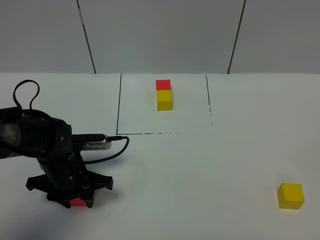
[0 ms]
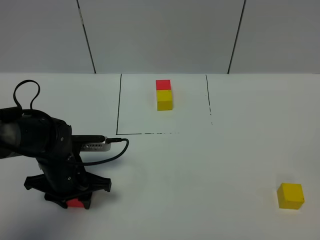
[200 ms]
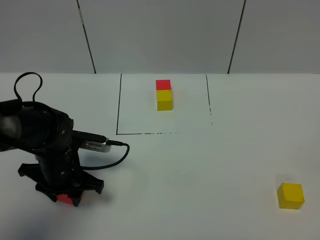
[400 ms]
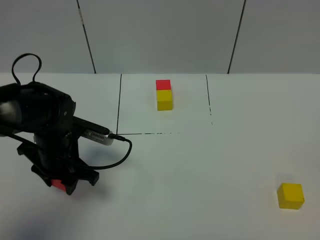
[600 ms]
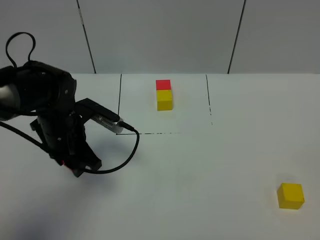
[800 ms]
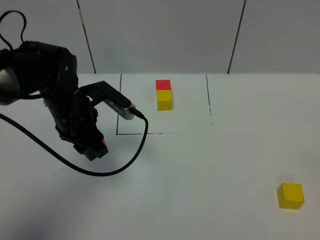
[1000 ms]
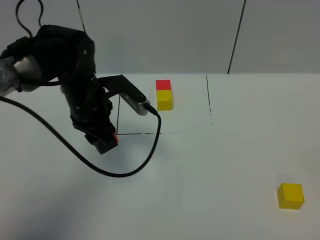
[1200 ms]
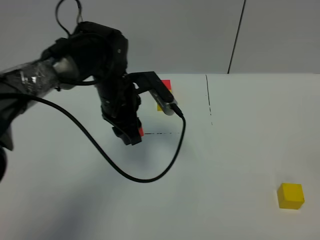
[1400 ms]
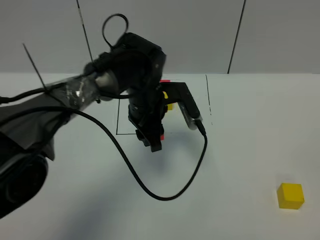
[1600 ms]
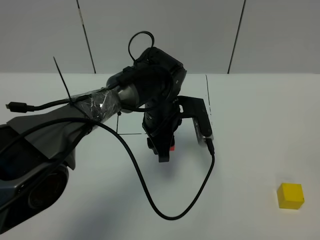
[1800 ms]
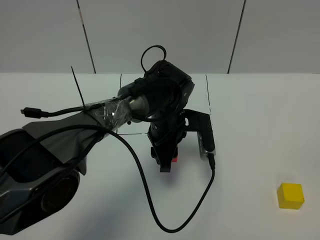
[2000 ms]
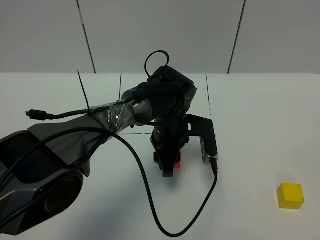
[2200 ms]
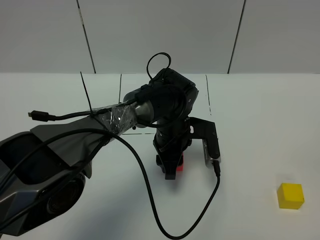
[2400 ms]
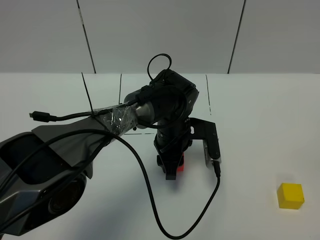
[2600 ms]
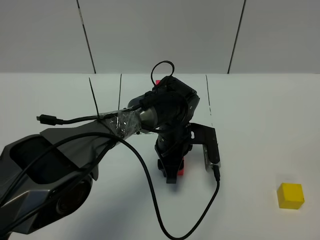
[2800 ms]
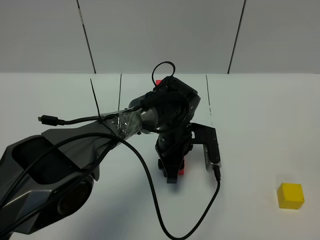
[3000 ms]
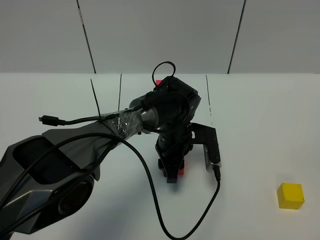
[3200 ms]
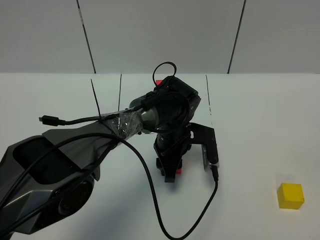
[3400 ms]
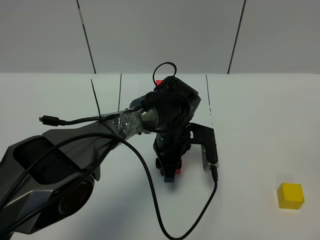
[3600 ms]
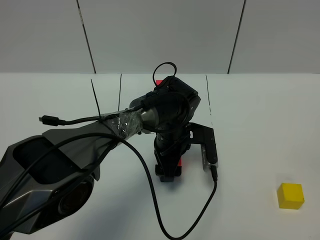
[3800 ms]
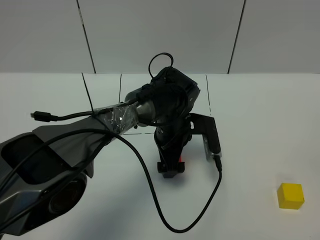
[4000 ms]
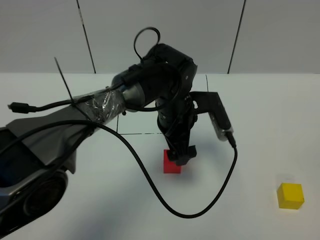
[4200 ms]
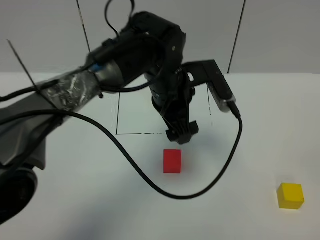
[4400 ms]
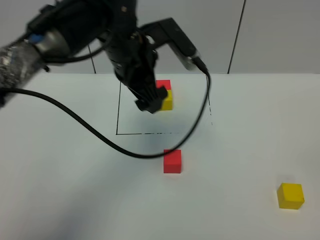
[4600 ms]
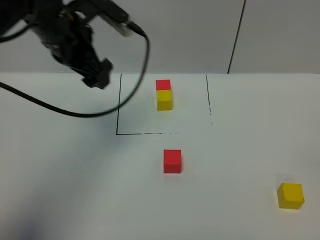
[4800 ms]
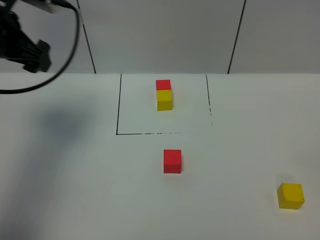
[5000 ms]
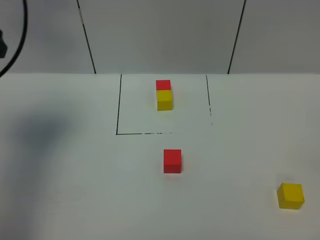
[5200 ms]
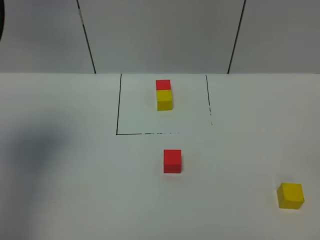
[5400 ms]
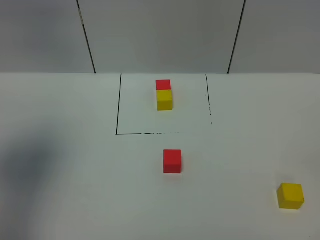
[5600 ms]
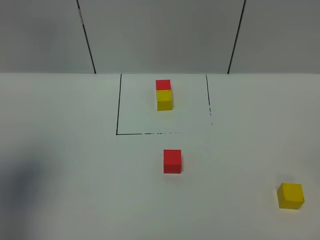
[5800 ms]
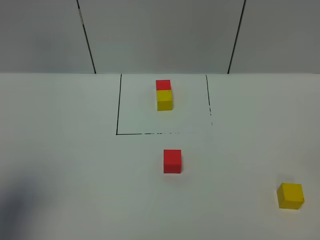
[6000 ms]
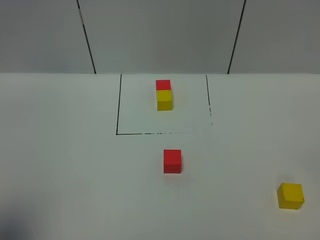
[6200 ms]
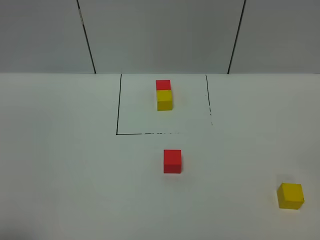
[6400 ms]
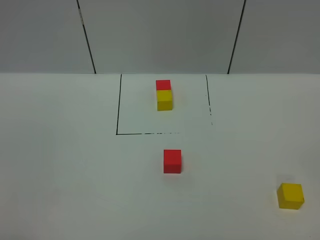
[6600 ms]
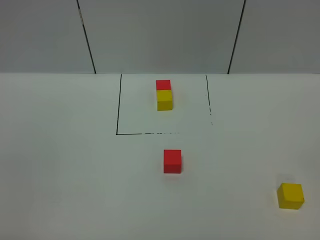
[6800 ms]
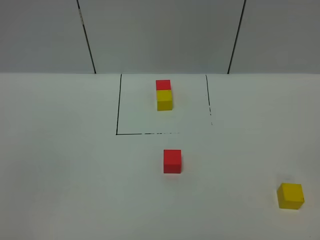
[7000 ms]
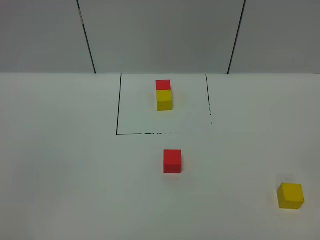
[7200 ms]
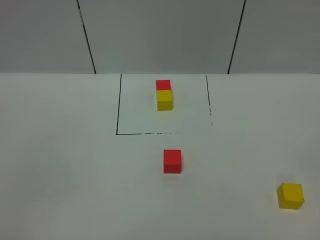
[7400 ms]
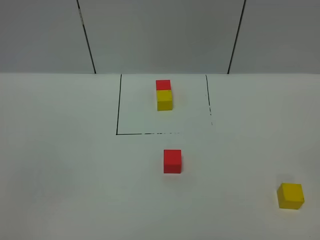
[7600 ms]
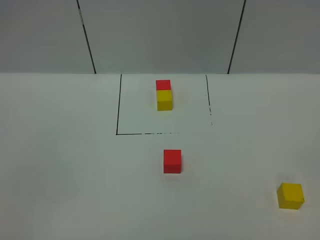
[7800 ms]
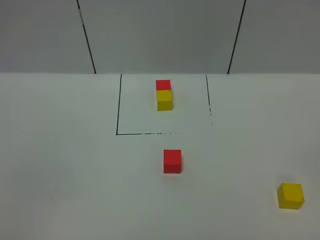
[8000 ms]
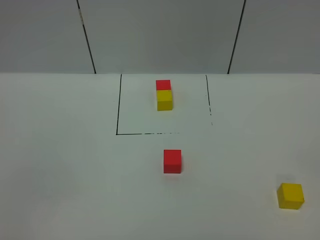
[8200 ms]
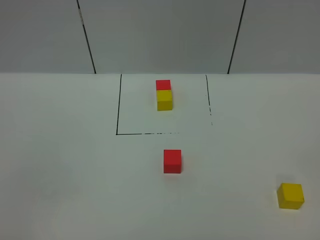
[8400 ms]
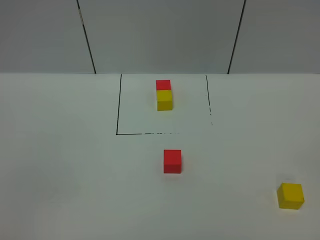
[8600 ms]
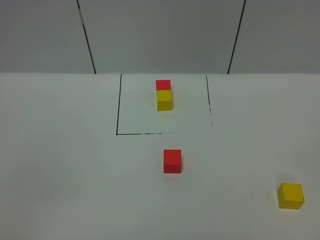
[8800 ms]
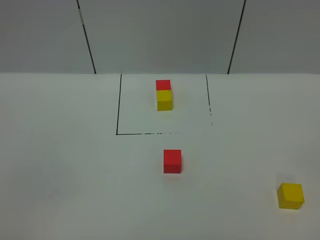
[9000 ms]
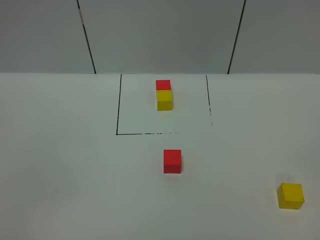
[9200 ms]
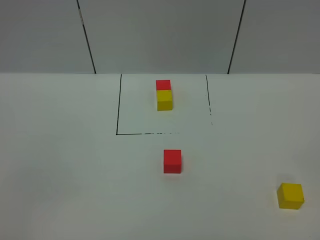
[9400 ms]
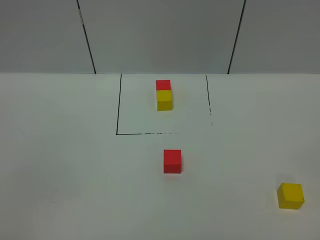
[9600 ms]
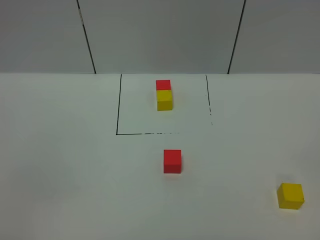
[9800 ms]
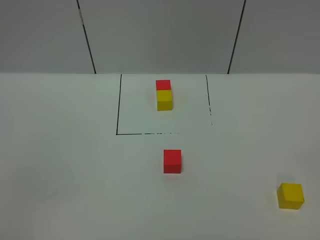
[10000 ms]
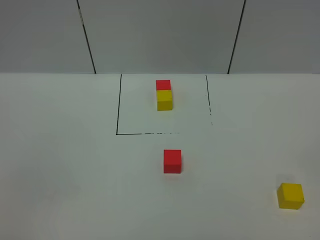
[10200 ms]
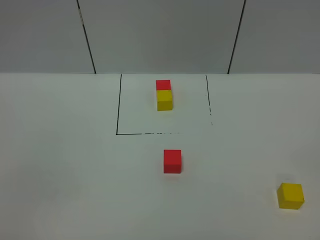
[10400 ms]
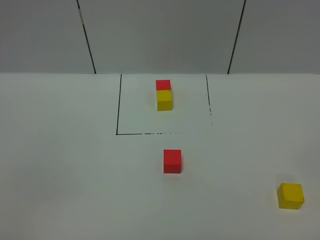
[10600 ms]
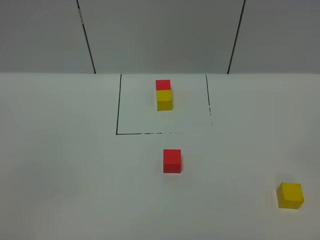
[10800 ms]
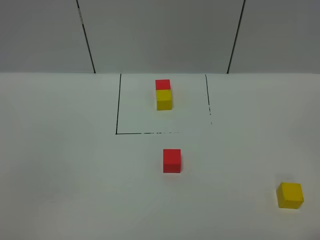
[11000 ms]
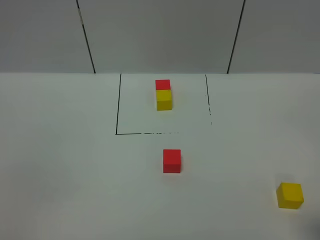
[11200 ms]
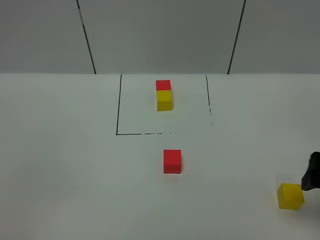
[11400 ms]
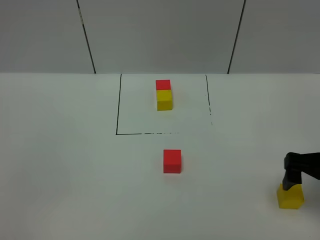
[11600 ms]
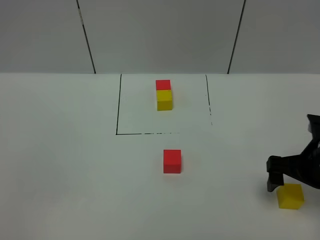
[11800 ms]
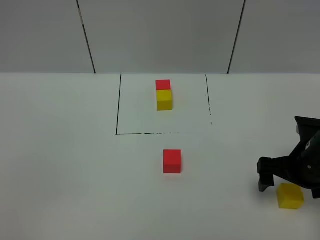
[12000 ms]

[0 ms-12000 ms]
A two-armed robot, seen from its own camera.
Task of the whole recording: According to the building block template in front, assemble the scattered blocks together.
Step, 0 ms to 4600 ms: Put the red cube in the center of the table.
0 ms to 1600 ms: The left gripper moves to the right, forward and upward, approximately 20 cm.
1600 ms to 3000 ms: The left gripper heads downward, covering about 10 cm.
3000 ms to 4400 ms: The left gripper shifts about 15 cm upward, and opens its fingers.
4400 ms to 6000 ms: The left gripper travels to the left and backward by approximately 40 cm.
6000 ms to 7600 ms: The left gripper is displaced backward and downward by approximately 20 cm.
7600 ms to 10400 ms: Neither gripper changes place.
10400 ms to 12000 ms: The right gripper is displaced forward by roughly 30 cm.

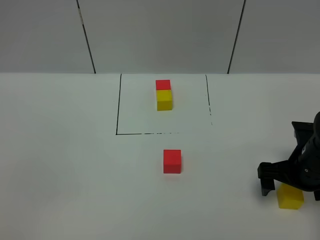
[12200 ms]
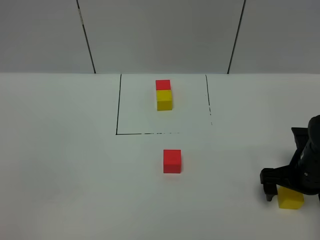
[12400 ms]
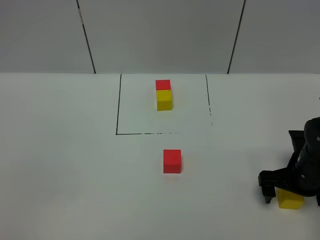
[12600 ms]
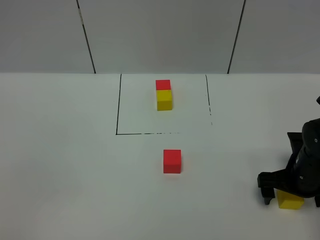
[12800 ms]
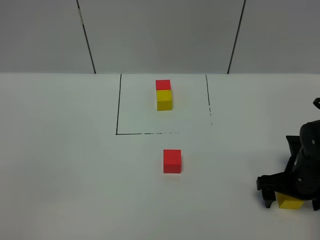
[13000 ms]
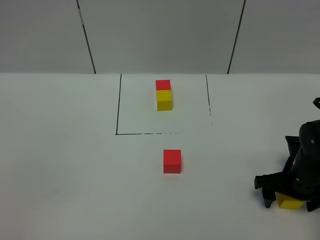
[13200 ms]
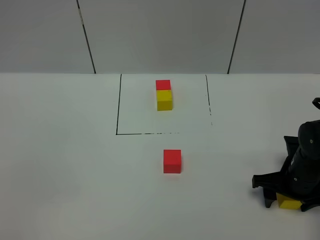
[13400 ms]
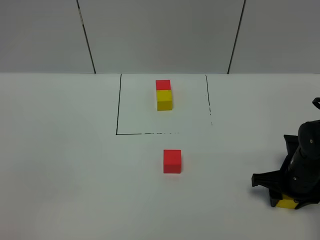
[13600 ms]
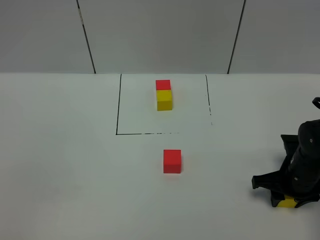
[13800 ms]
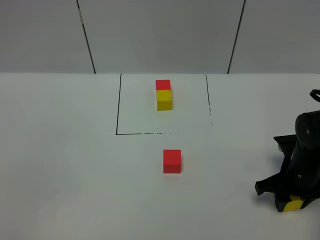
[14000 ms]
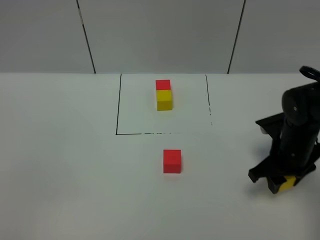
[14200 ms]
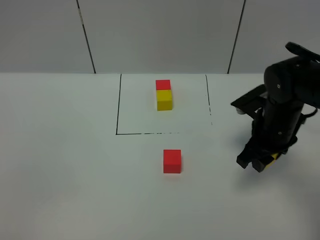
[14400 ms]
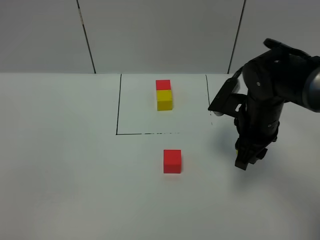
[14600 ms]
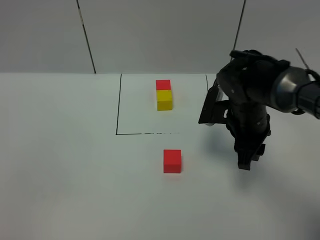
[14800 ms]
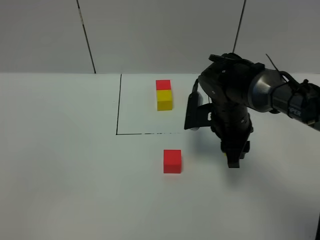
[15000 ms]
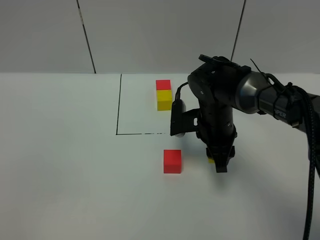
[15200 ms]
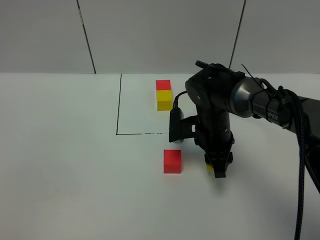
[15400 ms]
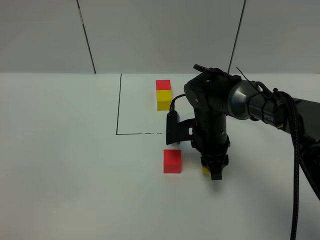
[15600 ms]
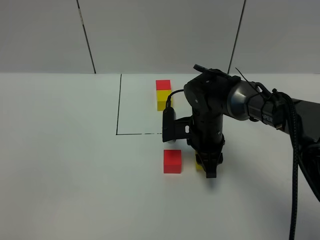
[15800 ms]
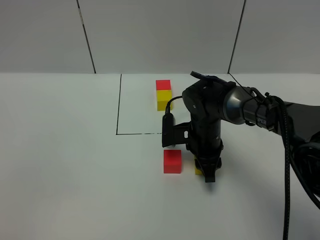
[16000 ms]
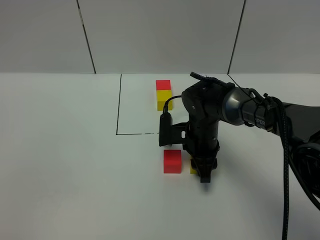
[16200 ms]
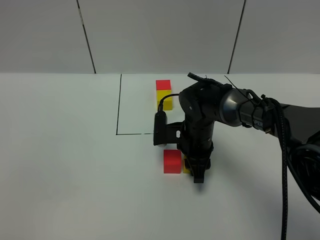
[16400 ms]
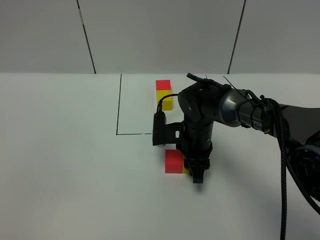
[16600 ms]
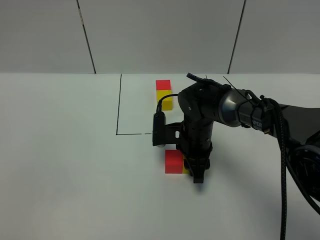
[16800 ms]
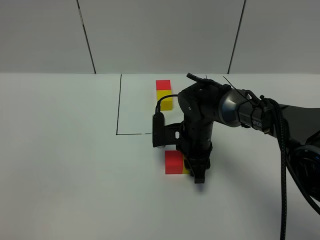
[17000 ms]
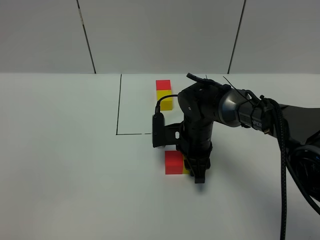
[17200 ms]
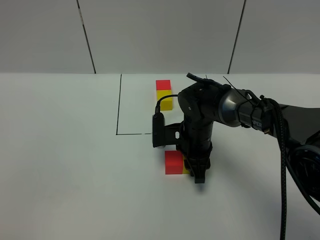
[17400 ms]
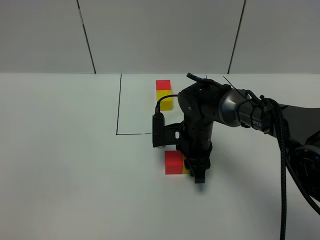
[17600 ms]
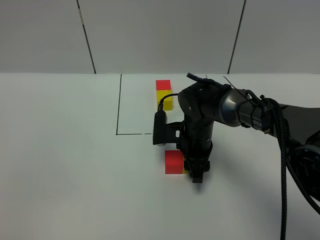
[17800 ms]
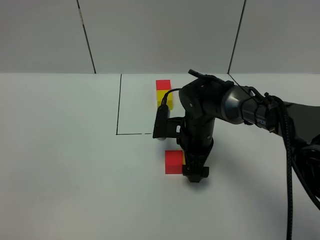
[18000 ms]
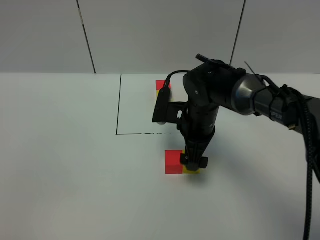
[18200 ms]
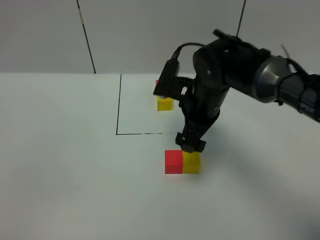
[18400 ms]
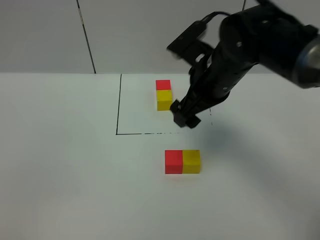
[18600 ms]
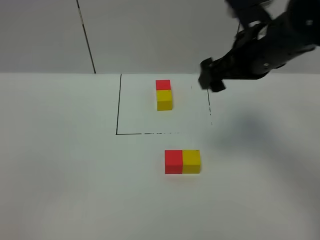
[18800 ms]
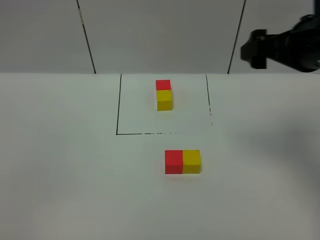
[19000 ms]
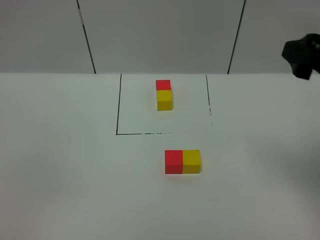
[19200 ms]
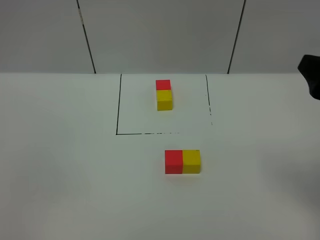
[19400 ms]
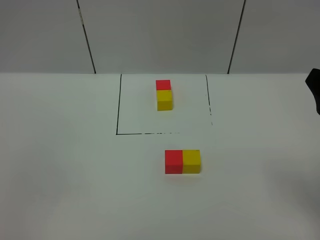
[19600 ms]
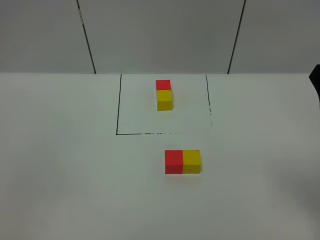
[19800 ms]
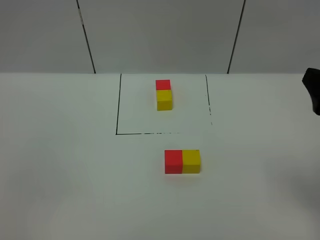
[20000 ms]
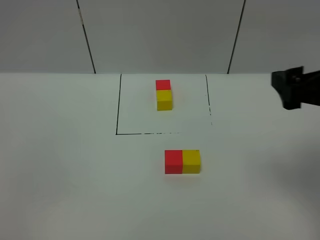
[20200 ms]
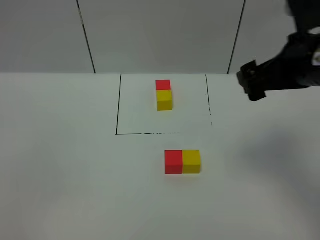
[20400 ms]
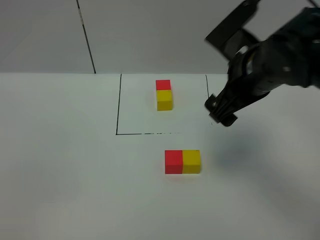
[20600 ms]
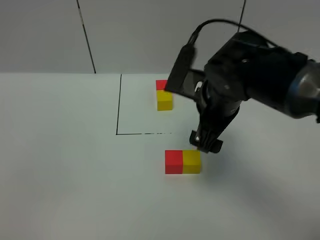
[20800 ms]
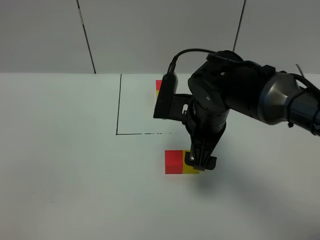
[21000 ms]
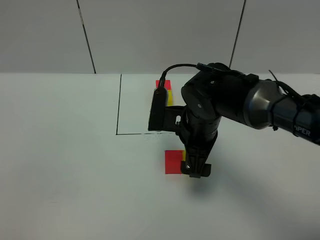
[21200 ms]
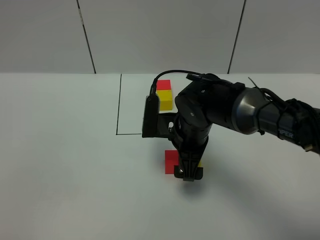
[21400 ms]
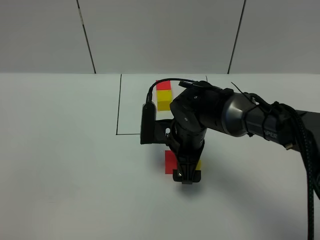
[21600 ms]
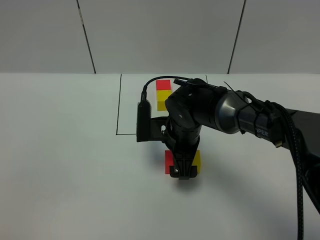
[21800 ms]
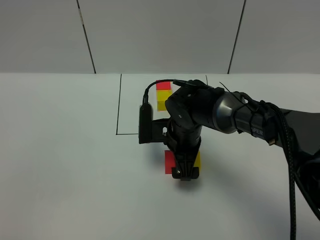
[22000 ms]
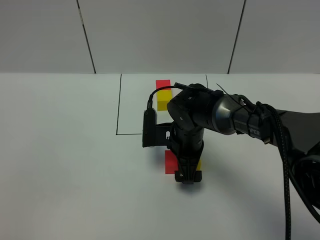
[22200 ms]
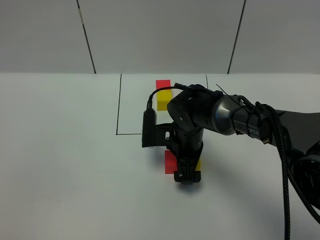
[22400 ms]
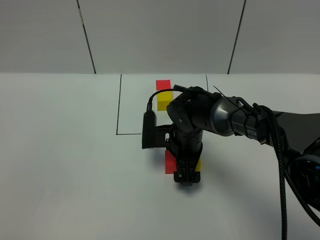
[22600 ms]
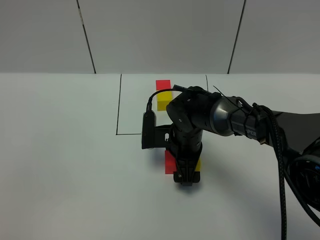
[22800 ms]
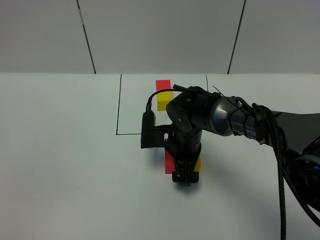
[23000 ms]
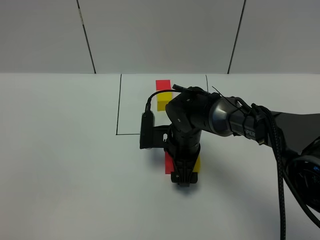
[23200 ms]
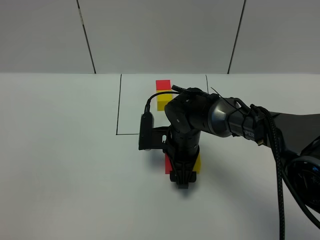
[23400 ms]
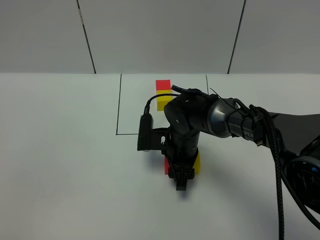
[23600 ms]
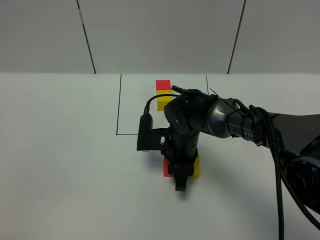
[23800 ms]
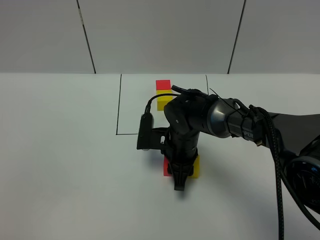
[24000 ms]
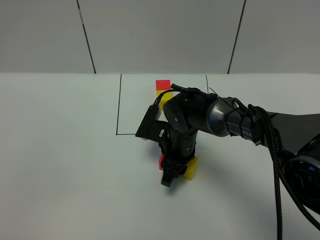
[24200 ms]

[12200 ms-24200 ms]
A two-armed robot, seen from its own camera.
Task of the whole recording: According to the building block template in front, assemble the scattered blocks together.
Step, 12200 ms to 18400 ms: Put the yellow cube on the right of the red cube.
12200 ms to 13800 ms: The right gripper closes its fingers.
13800 ms to 15200 ms: The right gripper travels to the left and forward by some 20 cm.
15200 ms to 16600 ms: The right gripper ends up some 5 cm from where it was.
16600 ms to 18200 ms: The right gripper shifts roughly 5 cm upward, and opens.
18200 ms to 19800 ms: The right gripper is displaced backward, to the right and upward by roughly 35 cm.
19800 ms to 21200 ms: The right gripper travels to the left, forward and downward by some 30 cm.
21200 ms to 22600 ms: The right gripper shifts approximately 10 cm downward.
22600 ms to 24200 ms: The right gripper closes.
